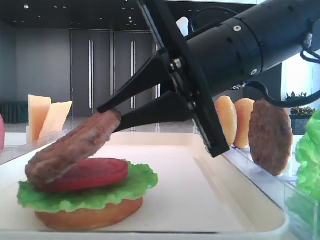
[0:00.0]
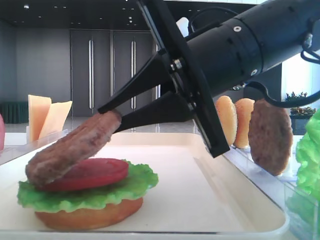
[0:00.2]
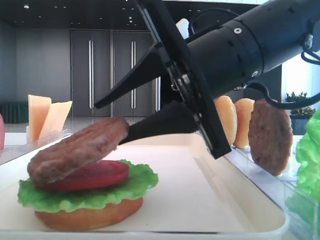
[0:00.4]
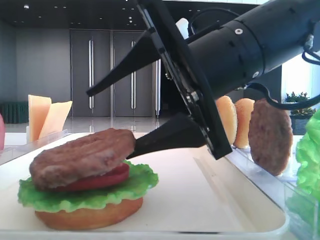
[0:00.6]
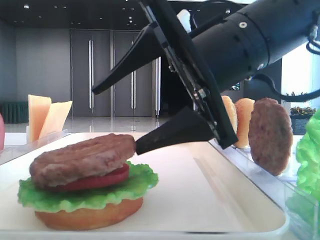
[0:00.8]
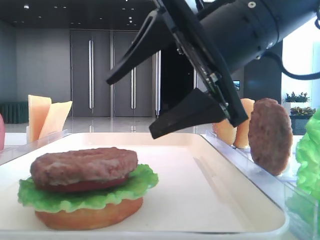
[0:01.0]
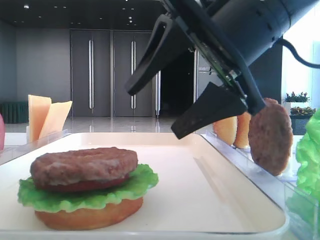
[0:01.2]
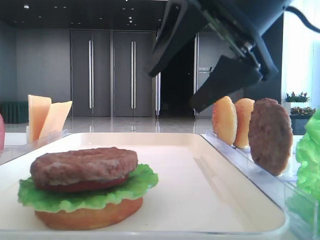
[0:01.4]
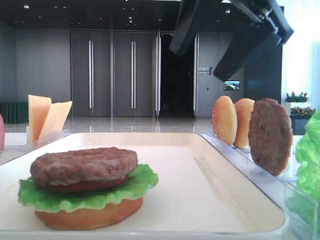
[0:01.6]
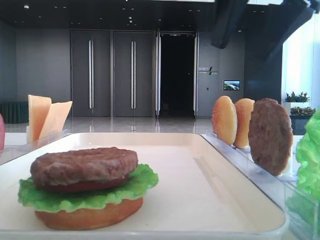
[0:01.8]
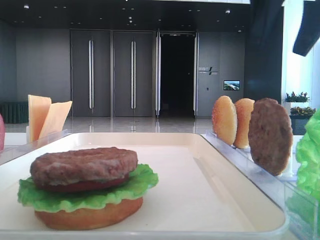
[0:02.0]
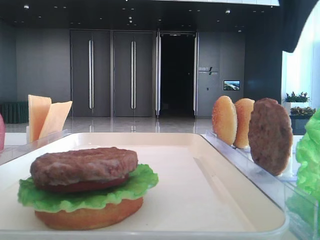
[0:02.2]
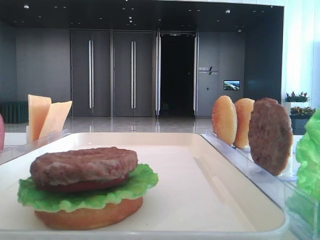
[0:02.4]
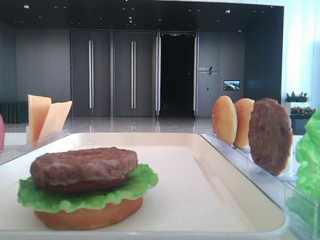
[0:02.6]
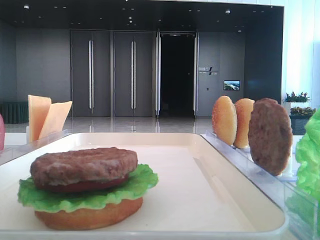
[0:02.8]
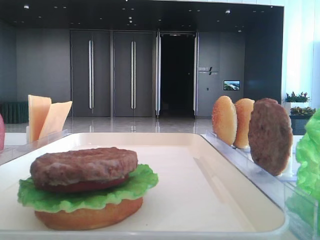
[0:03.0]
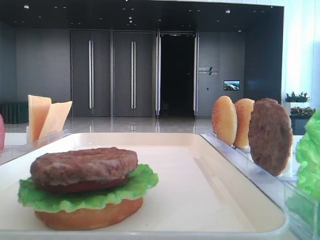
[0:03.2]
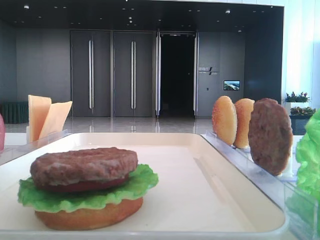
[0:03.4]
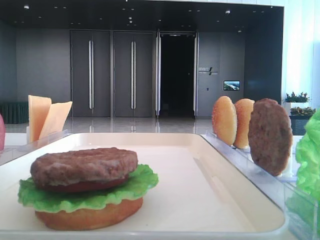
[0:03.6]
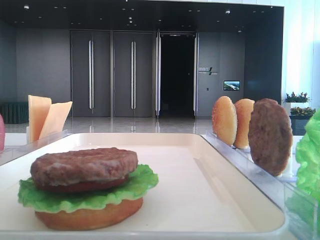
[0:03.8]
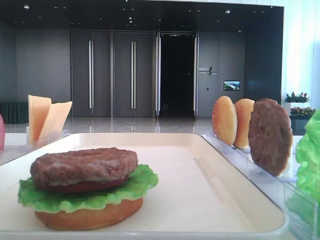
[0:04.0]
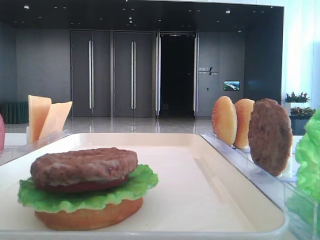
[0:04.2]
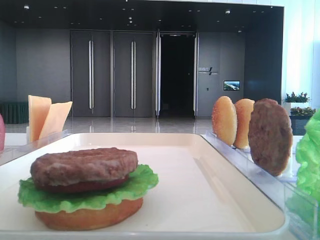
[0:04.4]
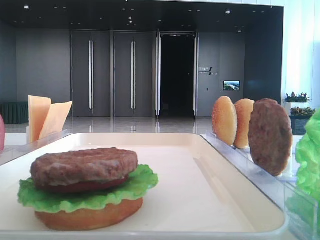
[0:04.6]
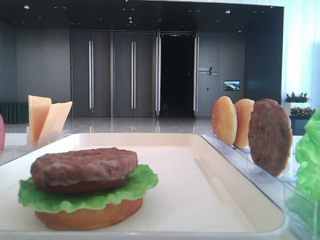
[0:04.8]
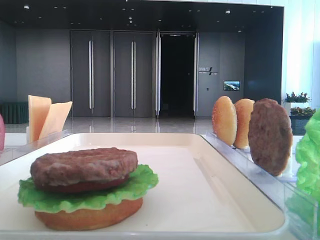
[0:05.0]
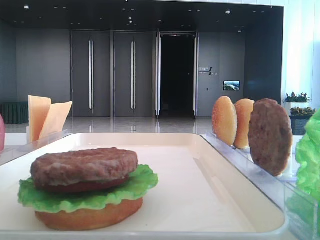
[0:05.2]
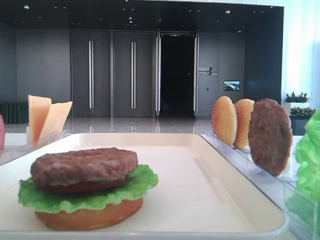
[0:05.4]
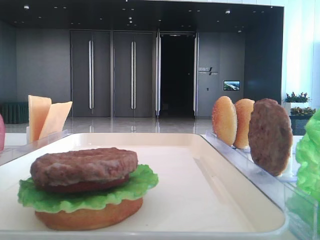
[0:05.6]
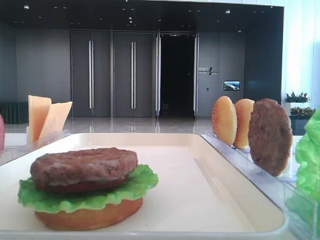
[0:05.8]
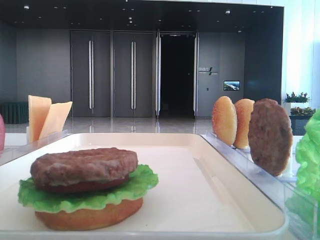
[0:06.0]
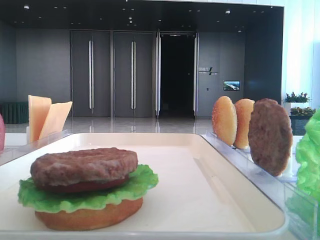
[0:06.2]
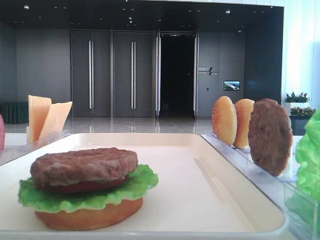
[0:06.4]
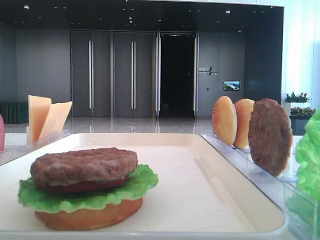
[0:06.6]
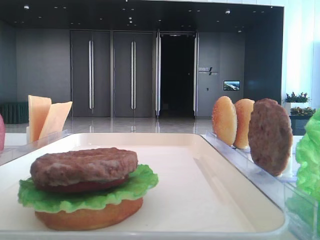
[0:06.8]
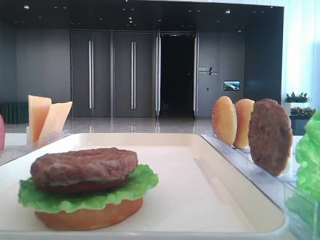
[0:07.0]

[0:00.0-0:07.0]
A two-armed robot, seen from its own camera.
0:00.0 to 0:01.4: The right gripper travels upward by some 5 cm, and opens up.
0:01.4 to 0:02.8: The right gripper goes approximately 30 cm to the right and upward.
0:05.6 to 0:07.0: Neither gripper changes place.

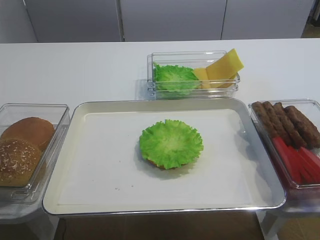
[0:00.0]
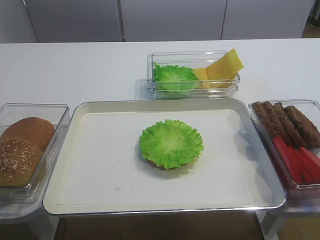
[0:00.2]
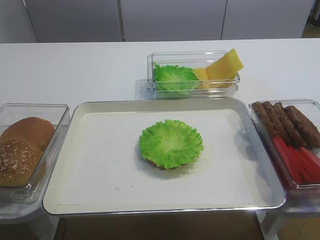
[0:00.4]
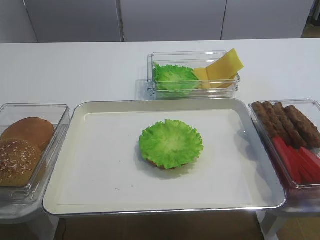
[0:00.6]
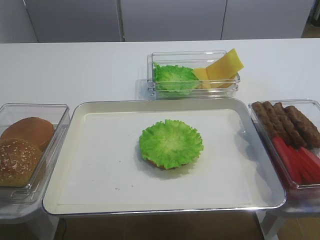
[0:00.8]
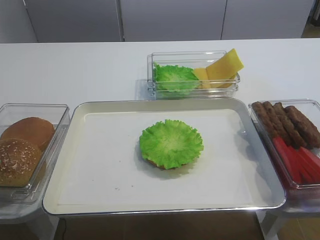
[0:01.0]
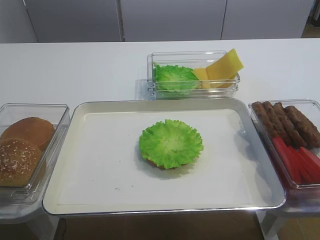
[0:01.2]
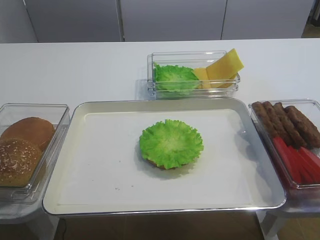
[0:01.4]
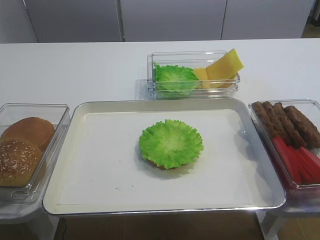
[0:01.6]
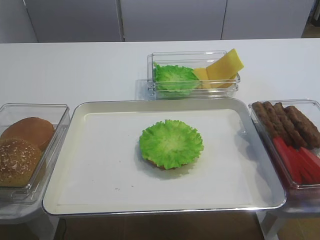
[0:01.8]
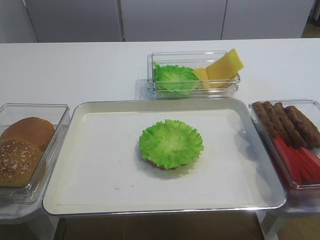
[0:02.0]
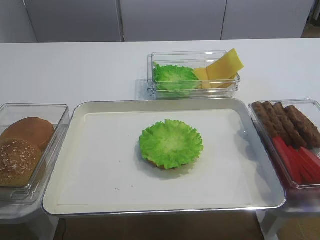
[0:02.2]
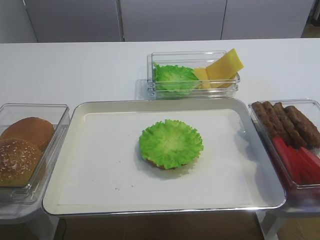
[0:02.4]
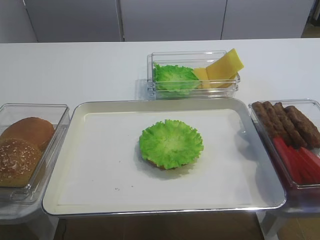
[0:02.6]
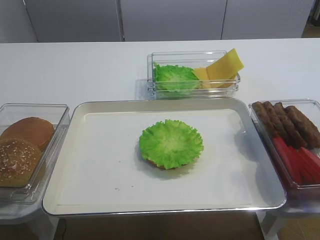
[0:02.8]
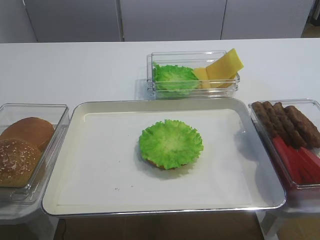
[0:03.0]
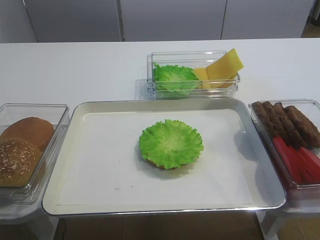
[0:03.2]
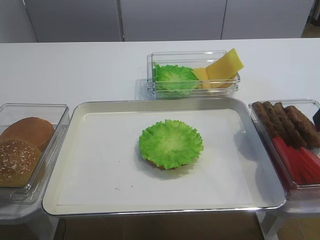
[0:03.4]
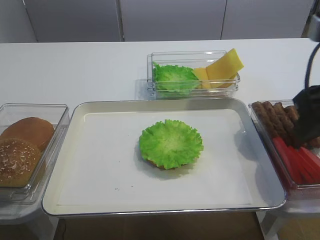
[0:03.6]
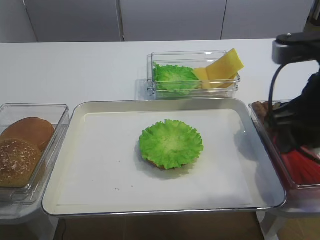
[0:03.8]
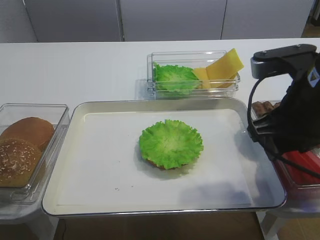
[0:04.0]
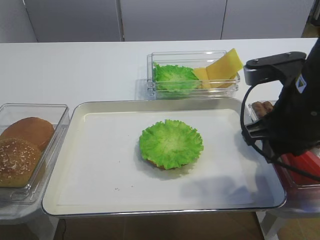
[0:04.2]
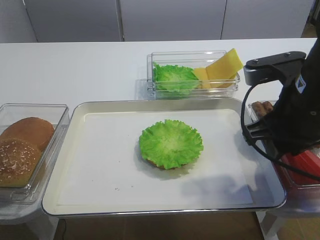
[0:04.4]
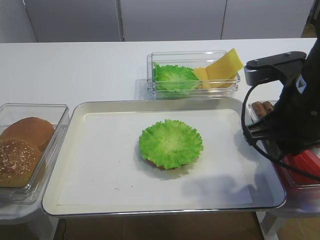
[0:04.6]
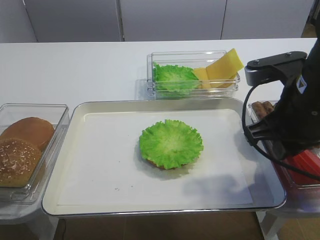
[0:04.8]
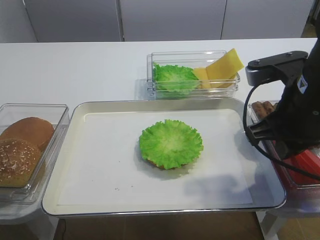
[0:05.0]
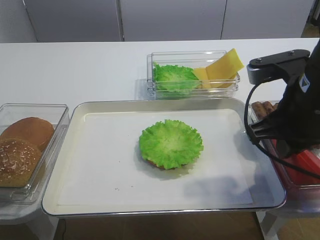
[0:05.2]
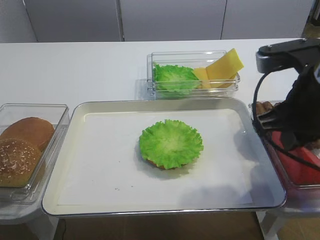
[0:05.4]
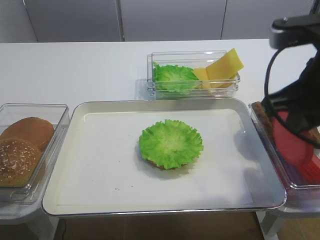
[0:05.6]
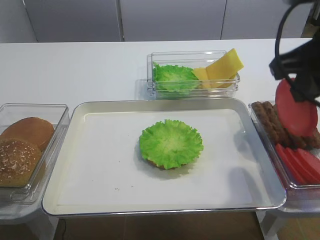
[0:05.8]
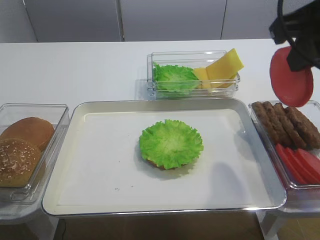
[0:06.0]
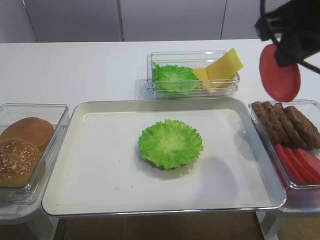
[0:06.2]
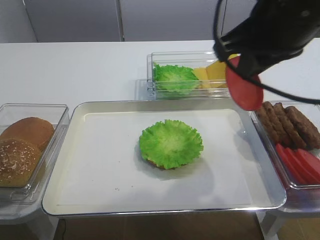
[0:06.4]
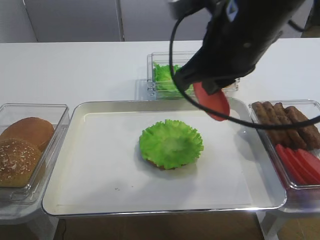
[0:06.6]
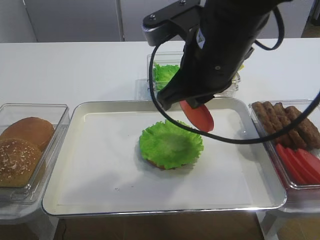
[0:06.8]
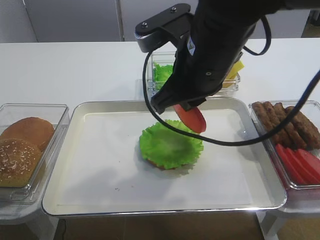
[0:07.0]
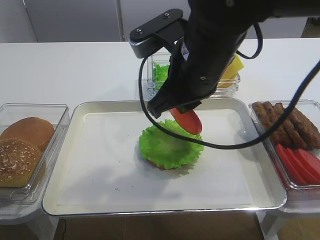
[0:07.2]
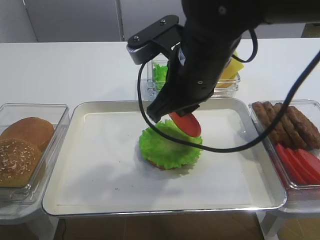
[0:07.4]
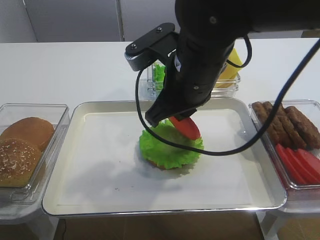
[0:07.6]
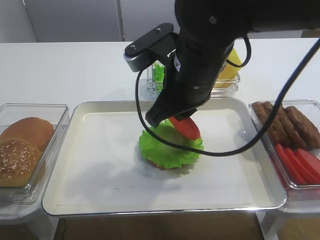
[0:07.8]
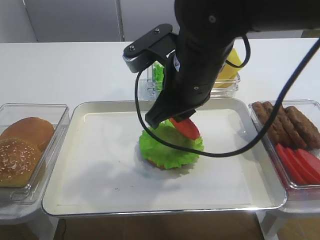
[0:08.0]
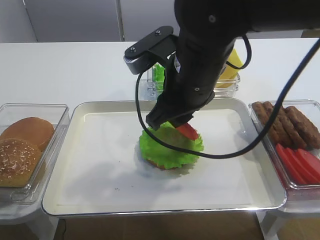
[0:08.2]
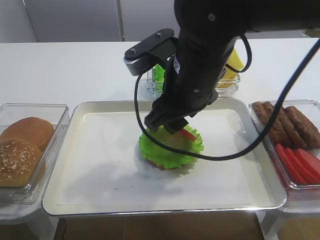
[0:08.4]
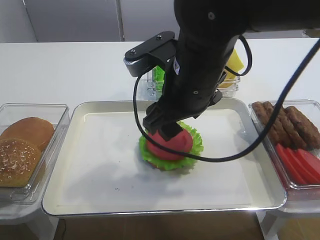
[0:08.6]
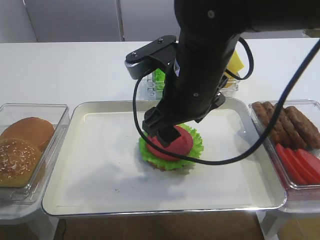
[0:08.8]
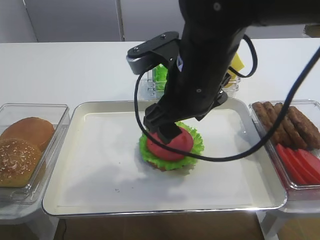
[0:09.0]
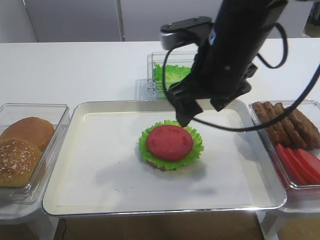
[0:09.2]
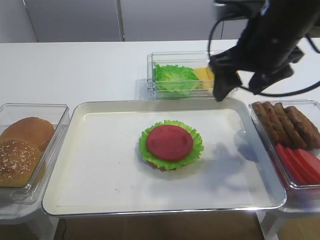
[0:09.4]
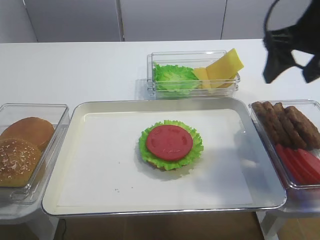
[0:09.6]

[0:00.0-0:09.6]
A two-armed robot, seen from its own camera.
Step, 0:00.0 to 0:05.4: Pick up the tomato slice with the right gripper.
Step, 0:05.6 to 0:08.6: Place the tomato slice on the lettuce leaf with the right gripper.
0:01.6 to 0:03.2: The right gripper moves forward, some 15 cm.
0:03.2 to 0:04.8: The right gripper heads to the left, downward and forward, covering about 10 cm, and closes up.
0:04.8 to 0:06.4: The right gripper goes approximately 10 cm upward.
0:06.4 to 0:08.0: The right gripper travels downward and to the left by about 10 cm.
0:08.0 to 0:09.6: The right gripper goes approximately 20 cm to the right, and opens up.

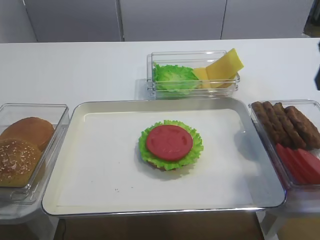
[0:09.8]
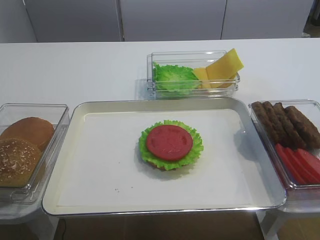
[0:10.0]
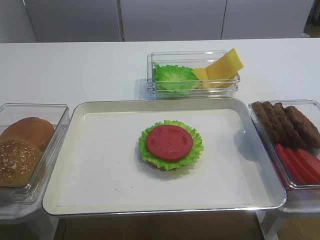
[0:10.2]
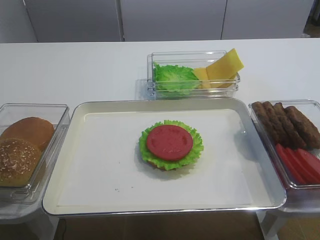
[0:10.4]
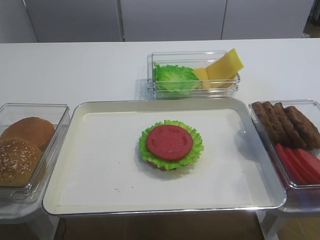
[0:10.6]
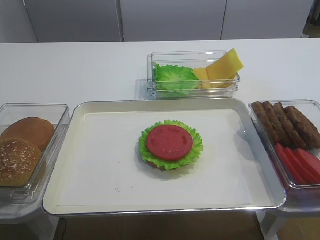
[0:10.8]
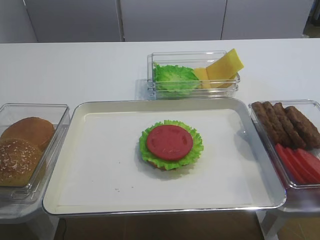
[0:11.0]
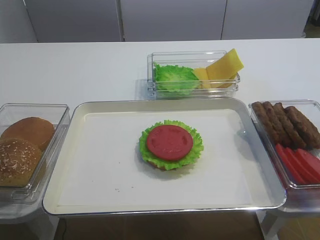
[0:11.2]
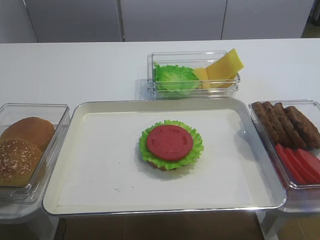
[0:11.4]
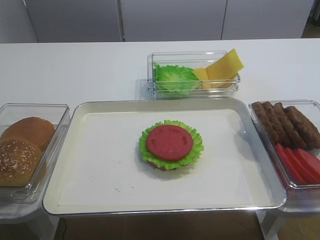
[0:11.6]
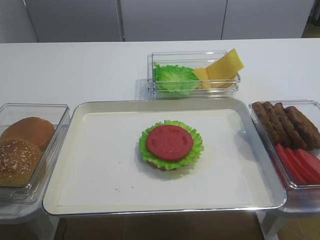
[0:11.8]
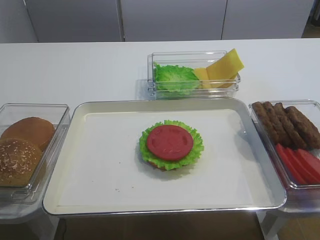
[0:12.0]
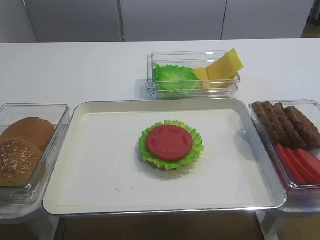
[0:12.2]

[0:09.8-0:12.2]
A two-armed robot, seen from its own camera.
0:09.8 to 0:11.0: The right gripper heads backward, covering some 25 cm.
